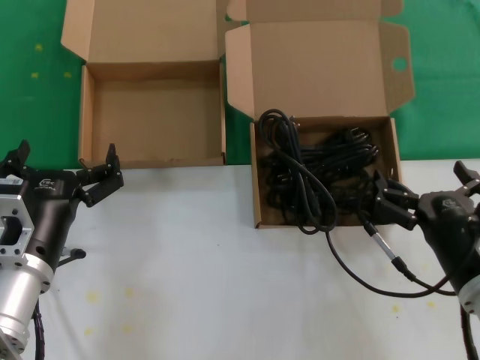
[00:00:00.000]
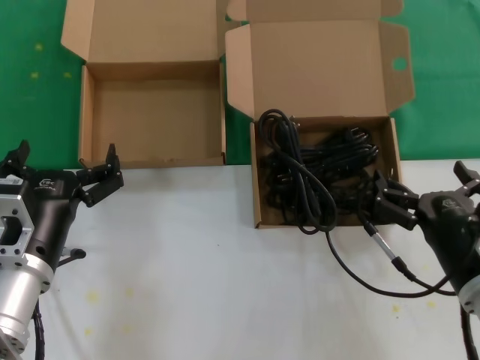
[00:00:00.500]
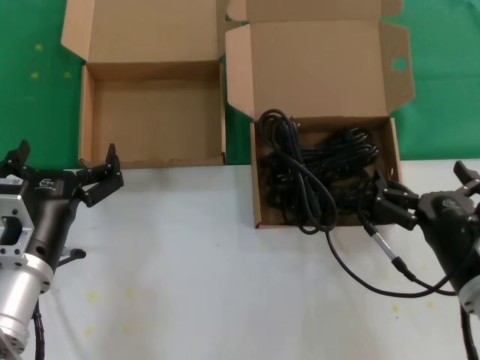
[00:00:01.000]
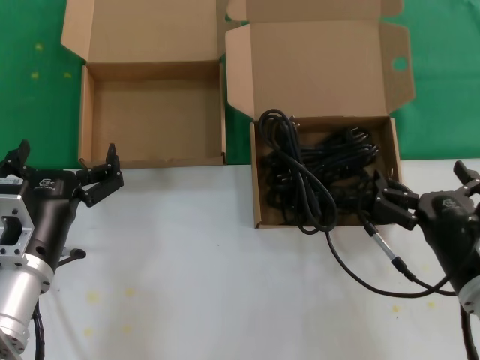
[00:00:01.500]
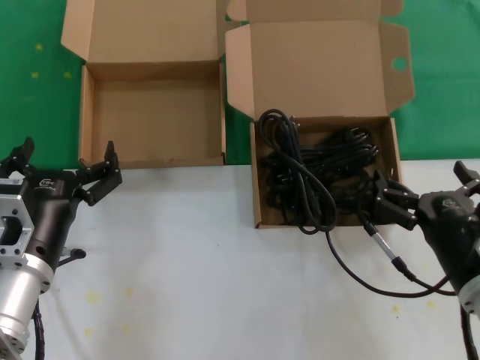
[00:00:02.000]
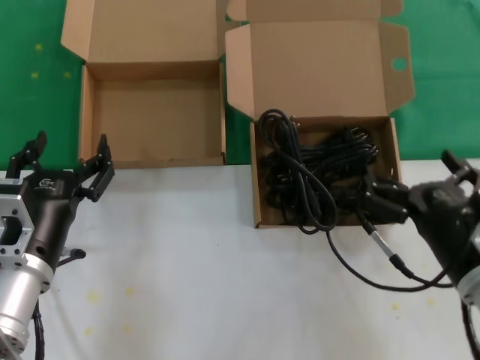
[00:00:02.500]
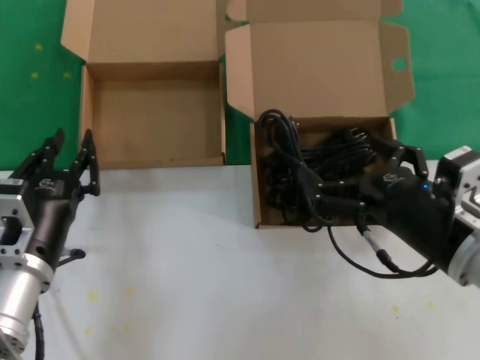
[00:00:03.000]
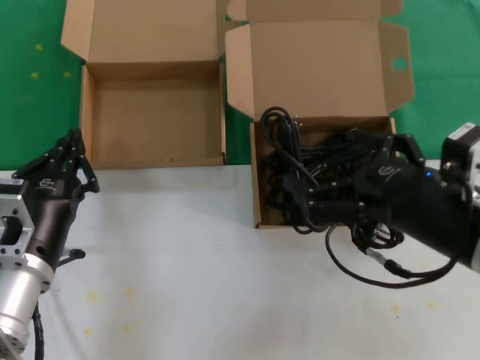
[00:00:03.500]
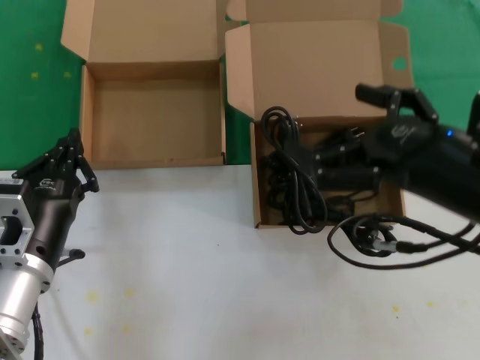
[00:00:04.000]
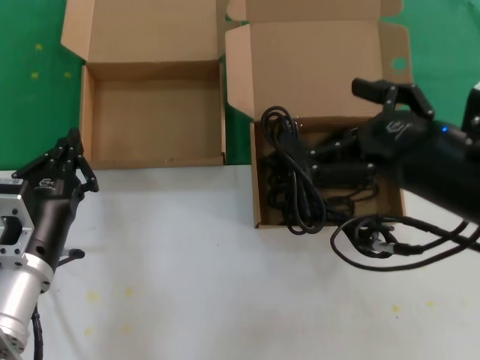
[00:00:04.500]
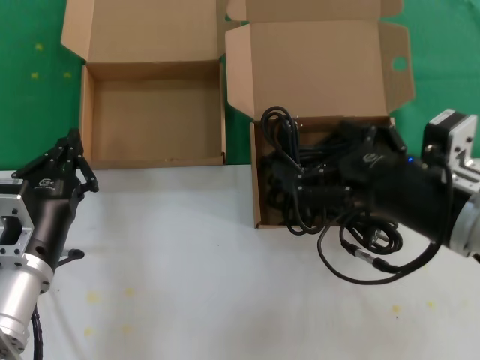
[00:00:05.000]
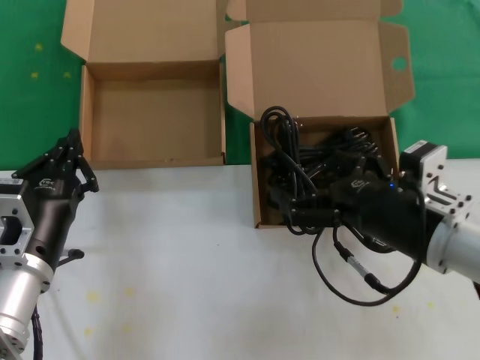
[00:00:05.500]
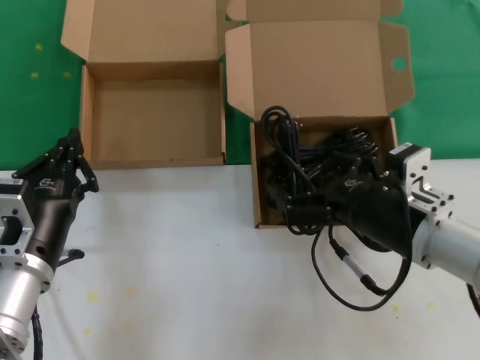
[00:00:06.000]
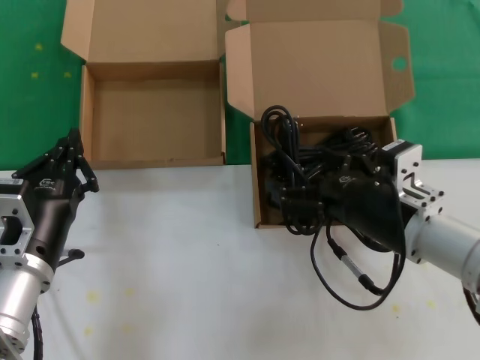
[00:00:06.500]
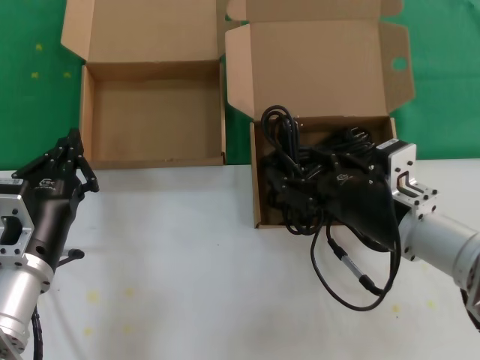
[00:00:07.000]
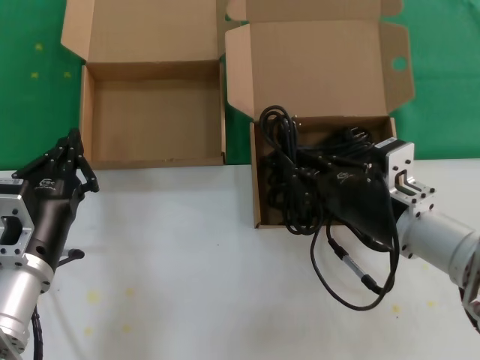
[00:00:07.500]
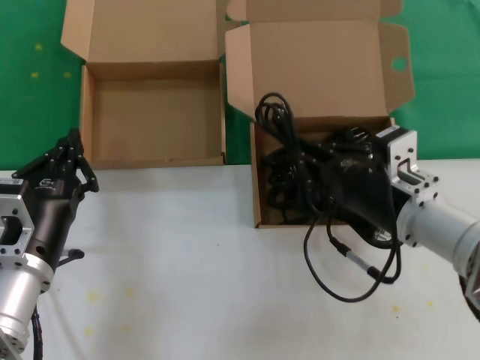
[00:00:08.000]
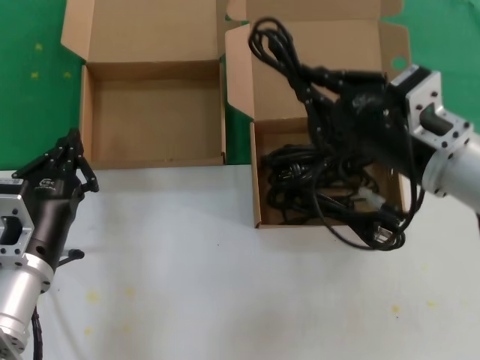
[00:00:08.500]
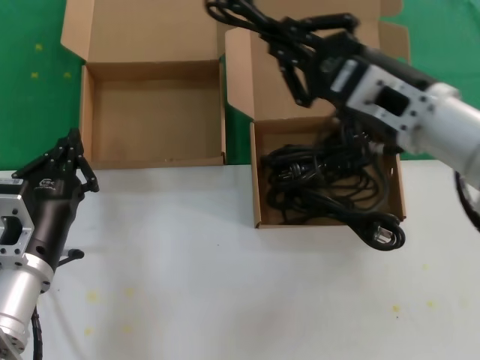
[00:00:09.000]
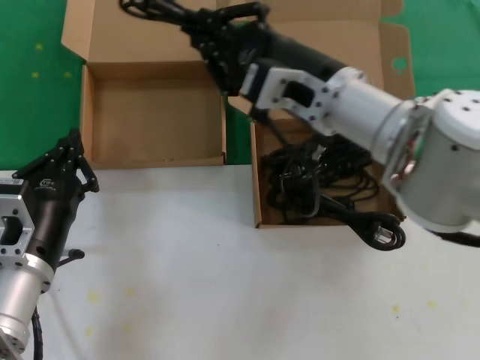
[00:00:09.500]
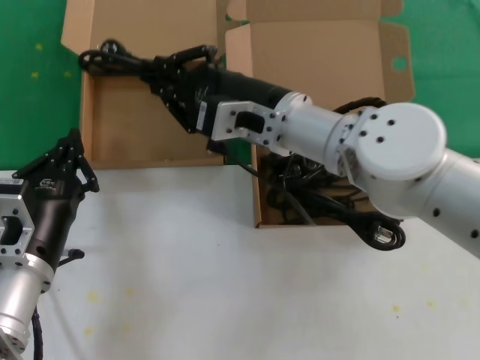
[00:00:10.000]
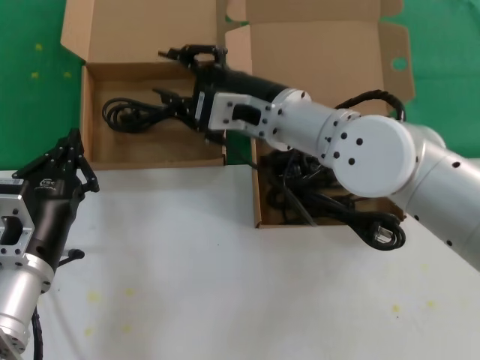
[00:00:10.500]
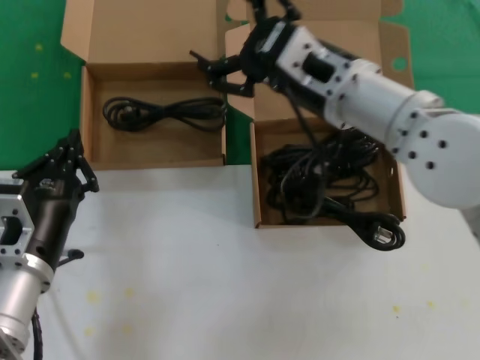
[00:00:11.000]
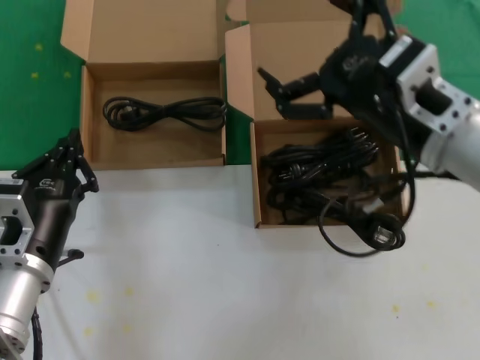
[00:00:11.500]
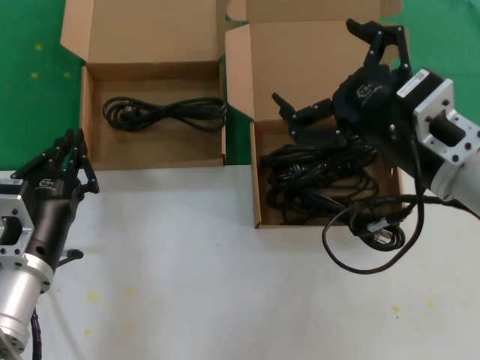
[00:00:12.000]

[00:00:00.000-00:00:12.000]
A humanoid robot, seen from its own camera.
Task of the whole recording: take the parts from the box containing them and put them into an empty box.
Step, 00:00:00.000 to 00:00:07.500: Grasp the data cable.
Step, 00:00:08.000 to 00:00:10.000: Place the data cable in the another box.
00:00:00.000 to 00:00:02.000: Neither hand changes place.
00:00:02.000 to 00:00:04.000: The right hand is displaced upward by about 20 cm.
00:00:04.000 to 00:00:06.000: The right hand travels downward and forward by about 15 cm.
00:00:06.000 to 00:00:08.000: The hands make only small movements.
00:00:08.000 to 00:00:10.000: The right hand moves to the left, forward and upward, about 20 cm.
00:00:10.000 to 00:00:12.000: The right hand shifts approximately 20 cm to the right and backward.

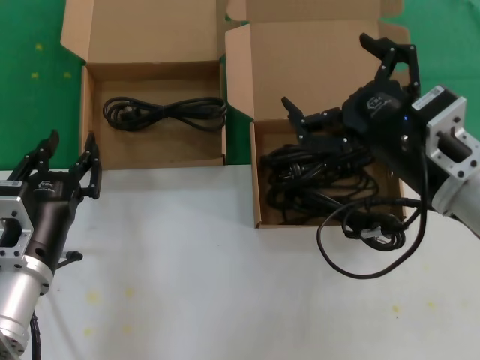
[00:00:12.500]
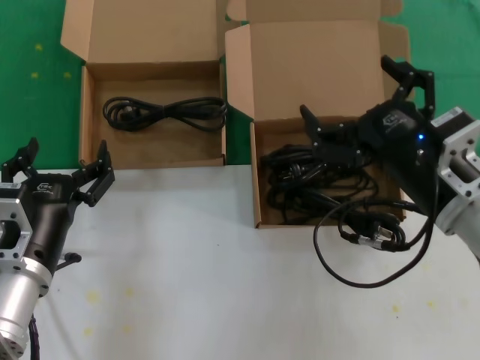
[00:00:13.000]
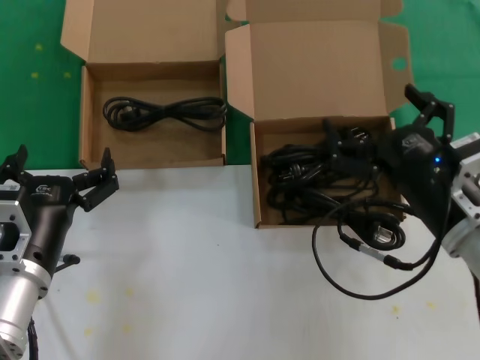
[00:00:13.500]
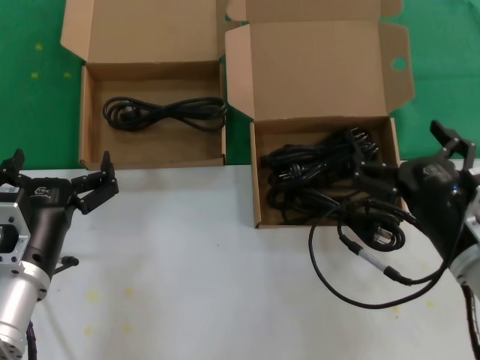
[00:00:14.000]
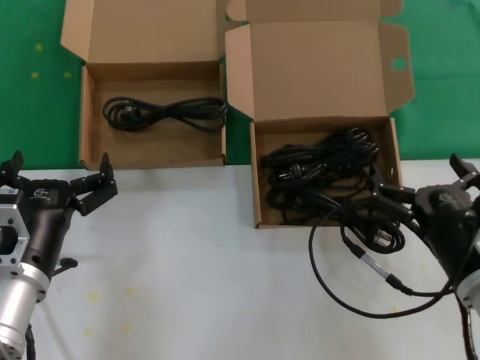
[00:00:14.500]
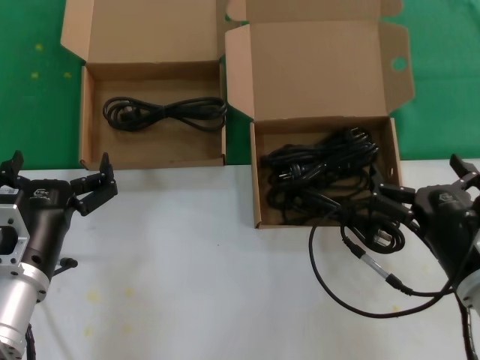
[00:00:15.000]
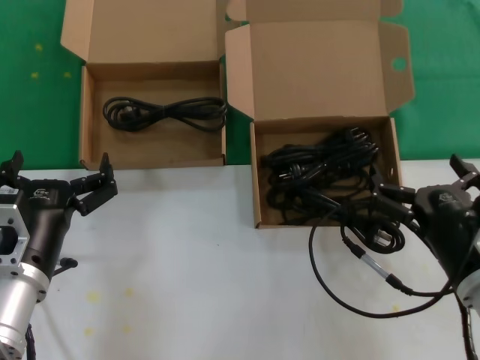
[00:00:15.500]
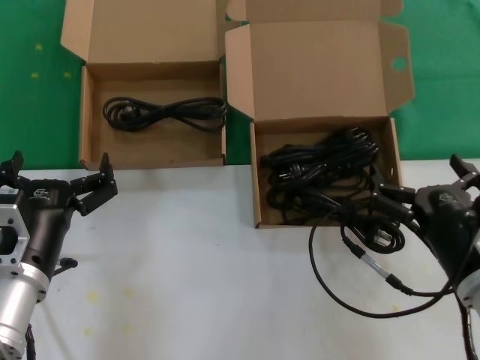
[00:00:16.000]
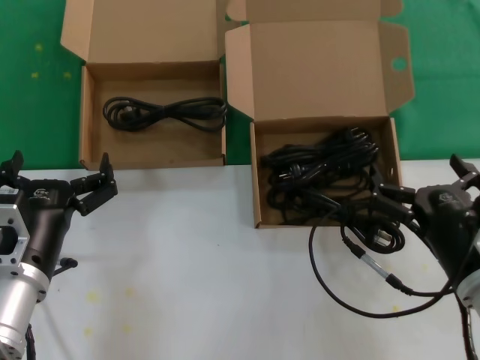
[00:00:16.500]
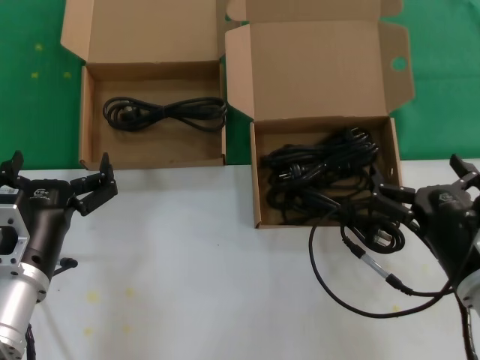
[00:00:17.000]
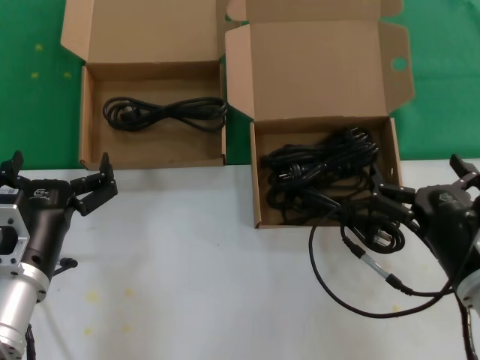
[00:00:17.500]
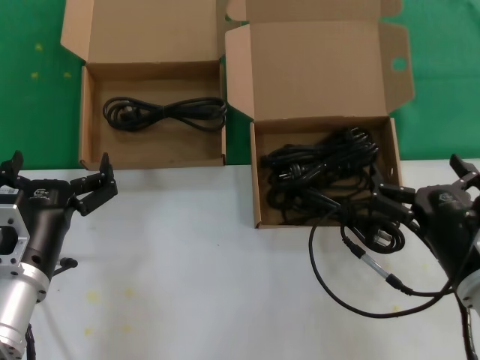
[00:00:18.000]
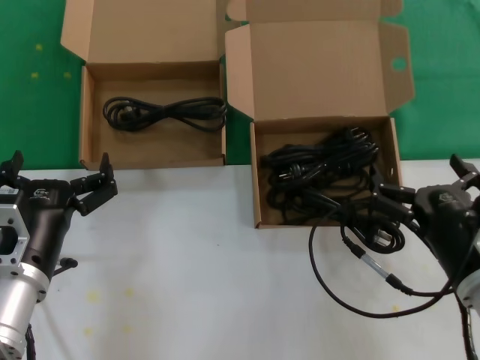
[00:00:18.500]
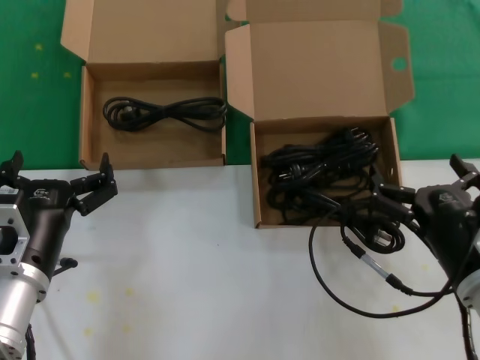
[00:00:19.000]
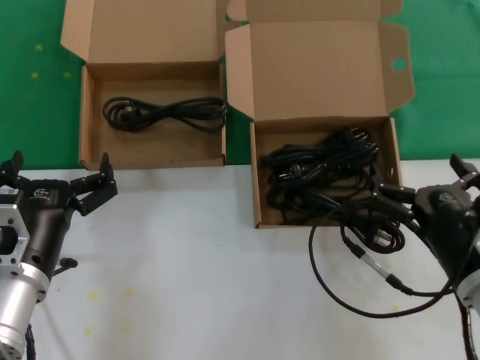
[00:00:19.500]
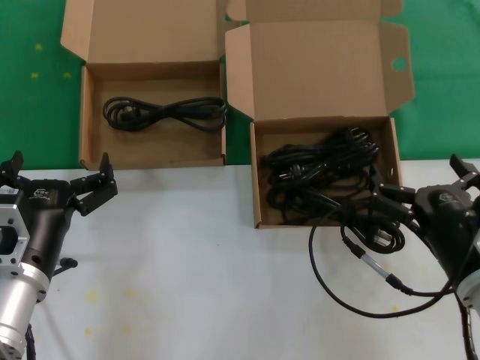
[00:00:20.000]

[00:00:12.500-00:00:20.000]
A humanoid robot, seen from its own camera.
Task of the whole recording: take the parts from the box containing them and put them into an empty box.
00:00:12.500 to 00:00:14.500: The right hand moves downward, roughly 15 cm.
00:00:14.500 to 00:00:20.000: Both hands stay put.

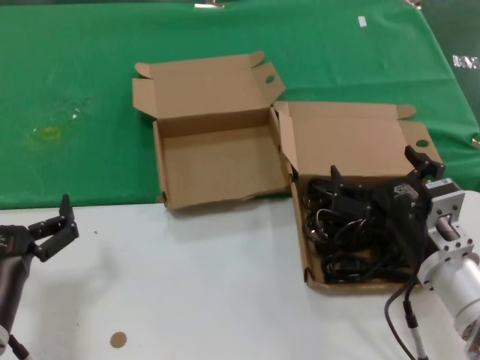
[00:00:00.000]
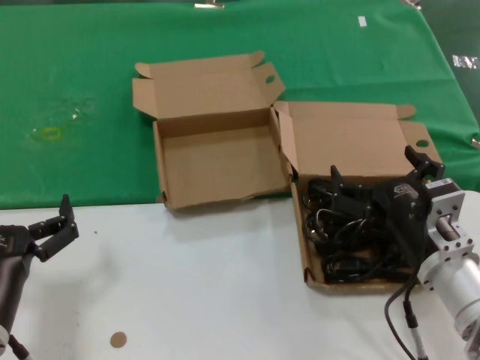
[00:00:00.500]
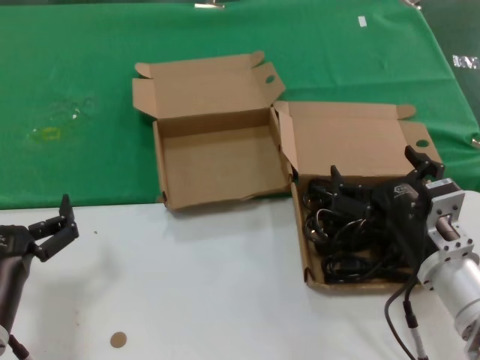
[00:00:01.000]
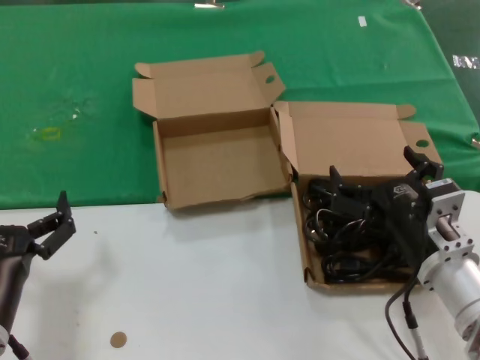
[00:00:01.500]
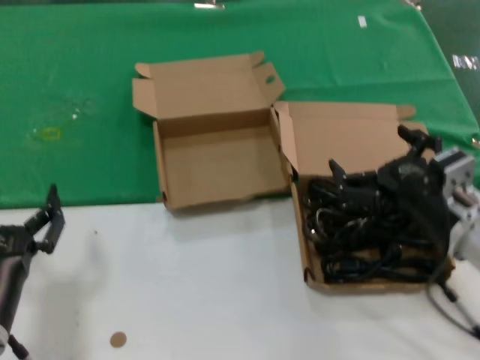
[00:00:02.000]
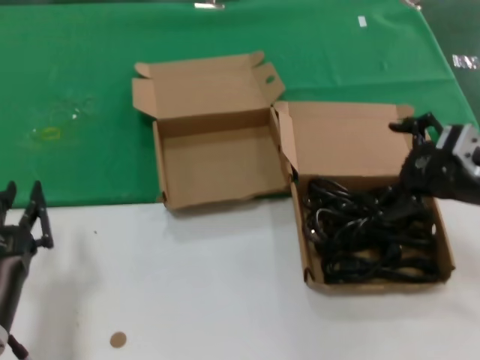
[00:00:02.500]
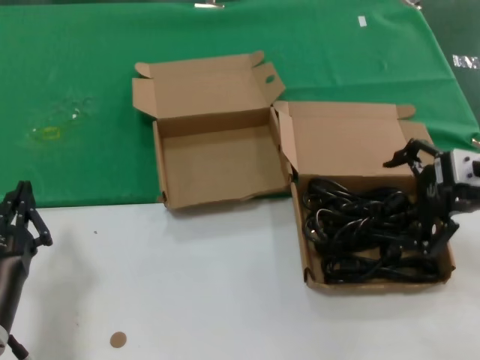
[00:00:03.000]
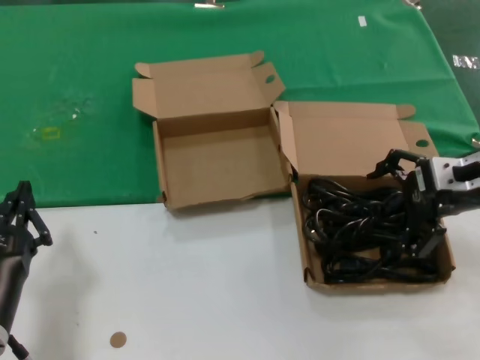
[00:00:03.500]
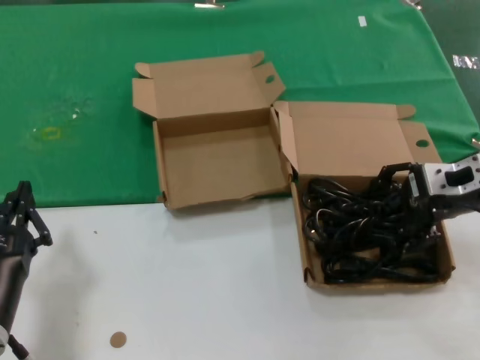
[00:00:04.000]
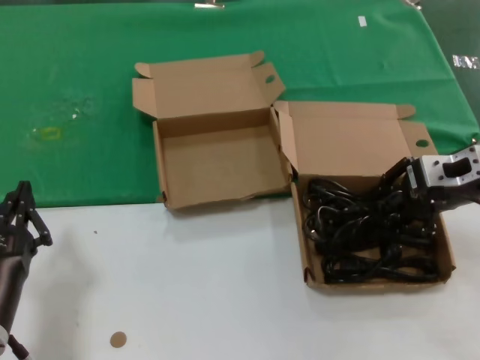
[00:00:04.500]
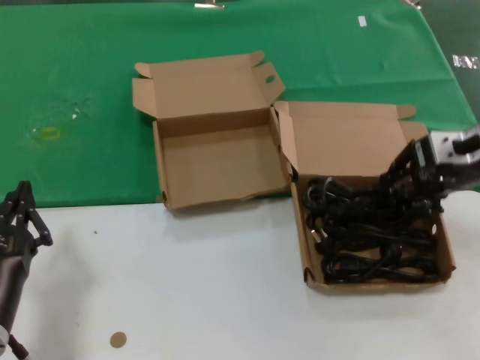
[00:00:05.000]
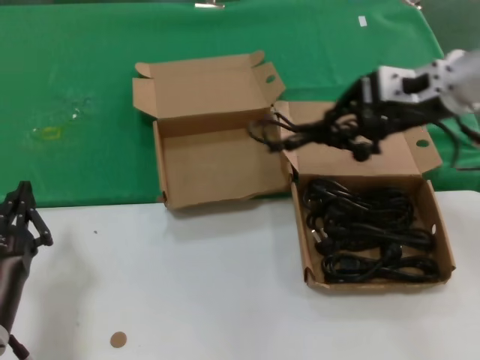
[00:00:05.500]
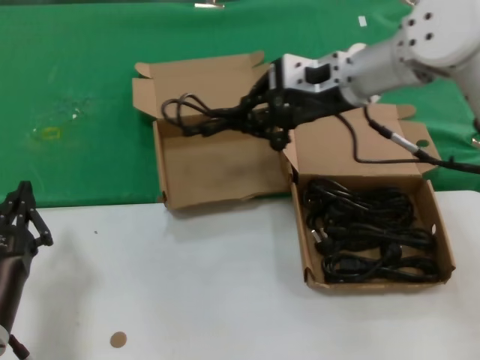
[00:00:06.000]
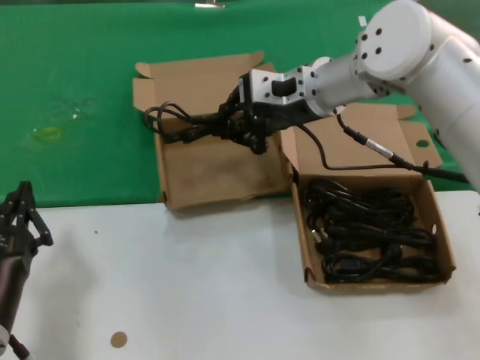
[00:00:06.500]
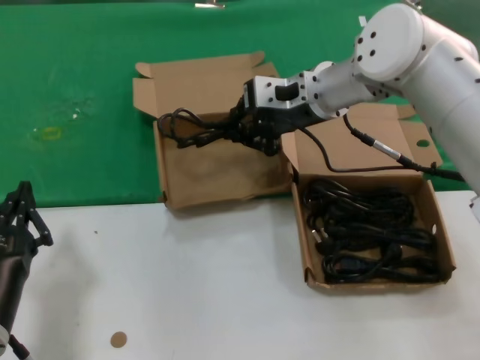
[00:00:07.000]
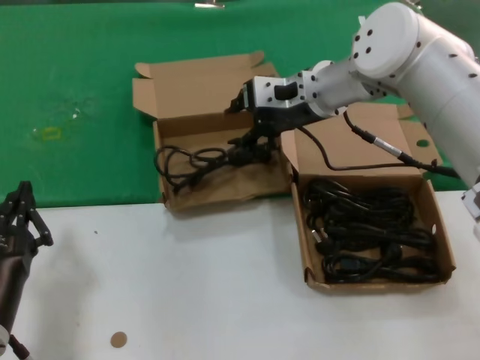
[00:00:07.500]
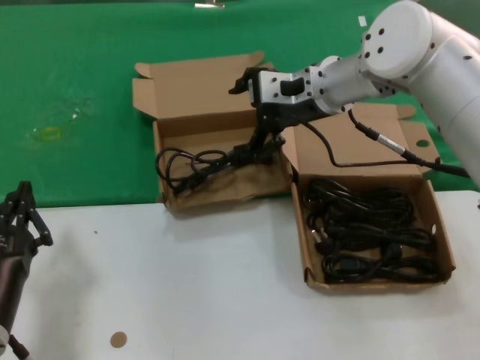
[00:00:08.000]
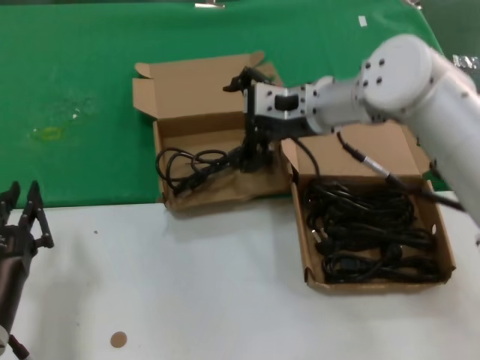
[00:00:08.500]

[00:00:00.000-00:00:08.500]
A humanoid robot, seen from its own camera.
Task of the whole recording: take the parts from the box containing them and put them into an empty box.
Step, 00:00:00.000 to 00:00:04.000: Grasp the data cable.
Step, 00:00:04.500 to 00:00:07.000: Place the data cable in the another box.
00:00:00.000 to 00:00:02.000: The right hand changes place by about 5 cm.
00:00:02.000 to 00:00:04.000: The right hand moves upward, forward and to the right, roughly 15 cm.
00:00:04.000 to 00:00:06.500: The right hand shifts some 20 cm to the left and forward.
00:00:06.500 to 00:00:08.500: The hands move only a little.
